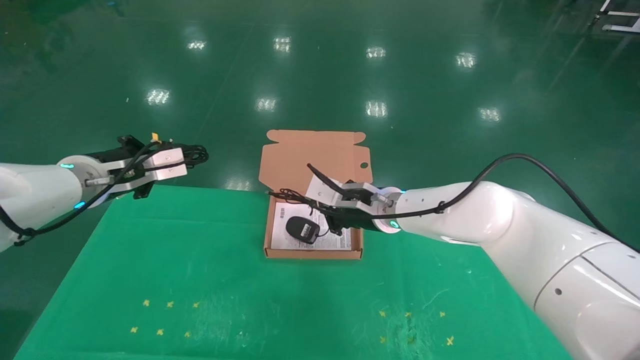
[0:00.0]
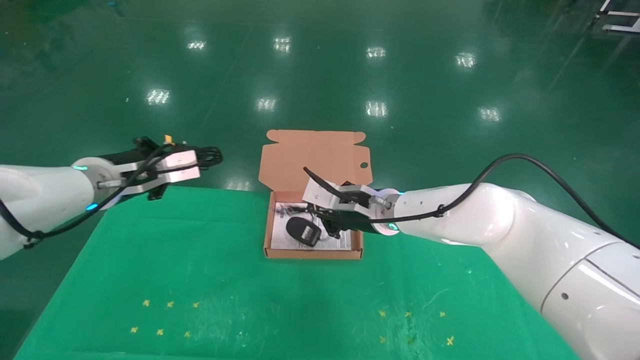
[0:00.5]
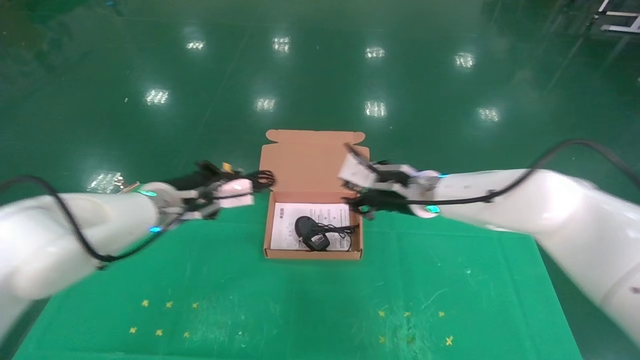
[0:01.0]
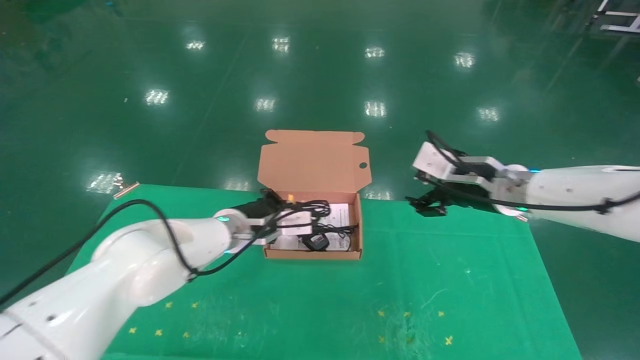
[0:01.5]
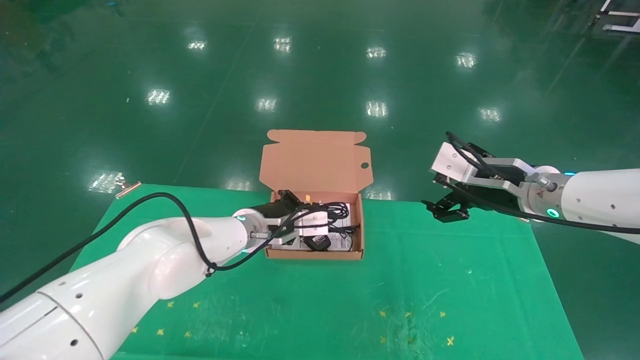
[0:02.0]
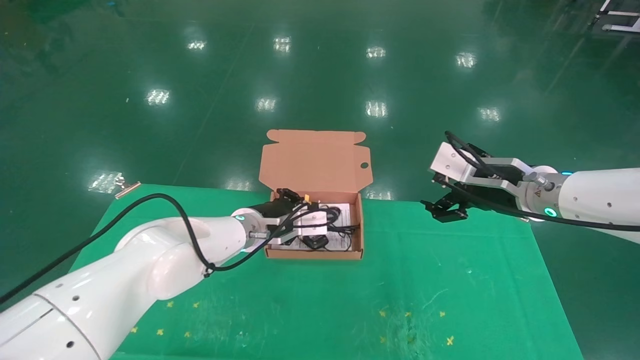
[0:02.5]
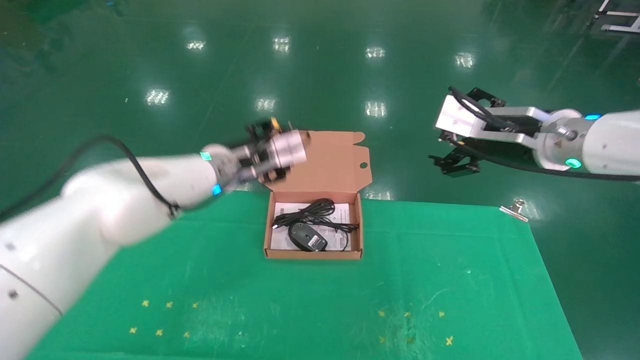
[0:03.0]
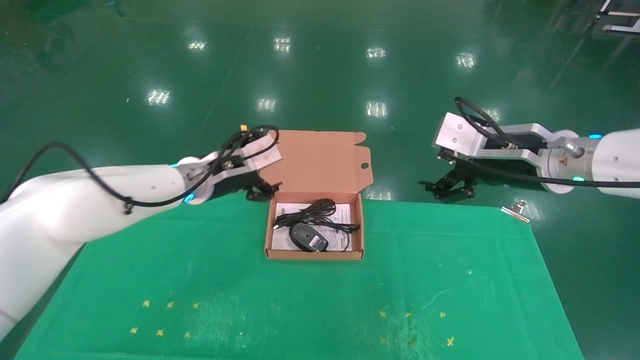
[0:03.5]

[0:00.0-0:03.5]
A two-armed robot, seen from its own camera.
Task of the whole recording: grasp data cable left put into box grasp mouse right put into box.
Step, 0:00.0 to 0:02.5: Place the mouse and power cord into the box.
0:00.0 to 0:02.0: The left gripper moves to the right and downward, about 25 cm; the right gripper moves to the right and backward, roughly 20 cm, and opens its fingers.
0:02.0 to 0:03.5: The left gripper heads upward and to the left, covering about 10 cm, and opens its fingers.
